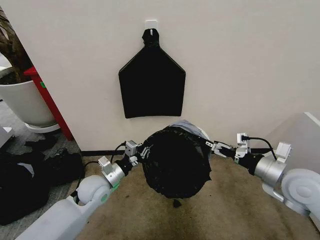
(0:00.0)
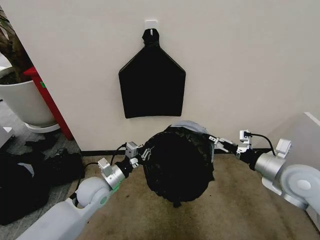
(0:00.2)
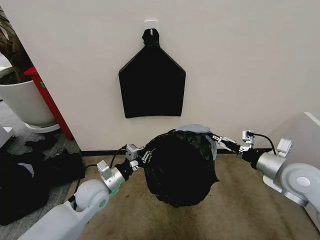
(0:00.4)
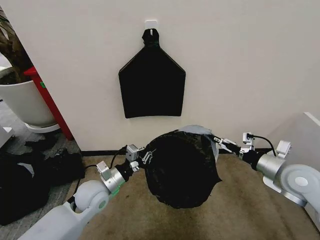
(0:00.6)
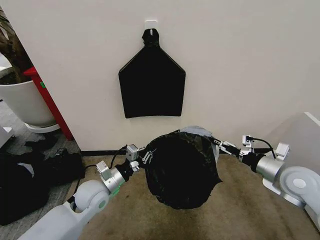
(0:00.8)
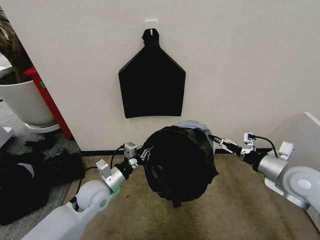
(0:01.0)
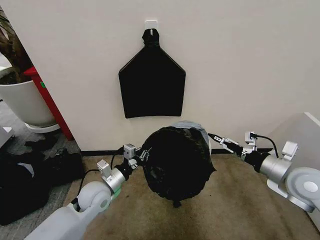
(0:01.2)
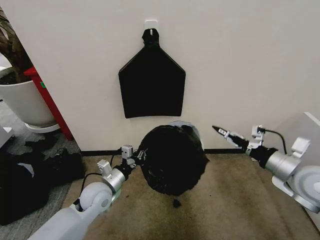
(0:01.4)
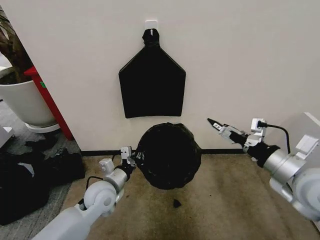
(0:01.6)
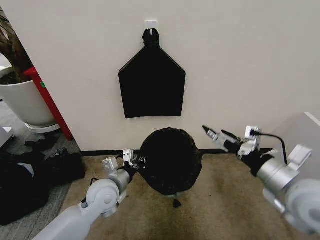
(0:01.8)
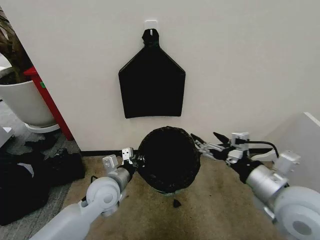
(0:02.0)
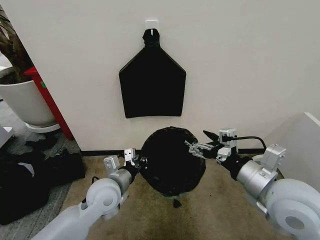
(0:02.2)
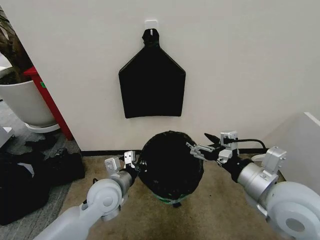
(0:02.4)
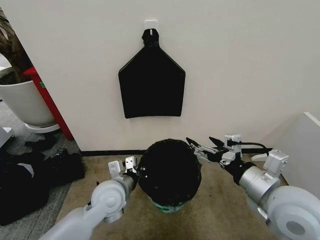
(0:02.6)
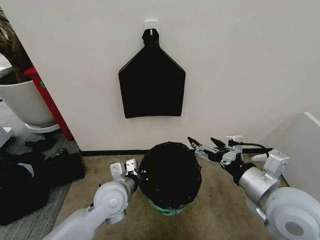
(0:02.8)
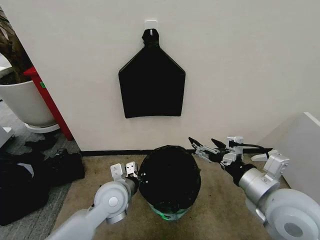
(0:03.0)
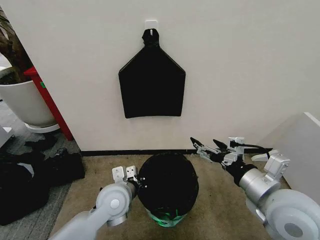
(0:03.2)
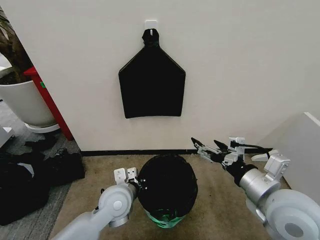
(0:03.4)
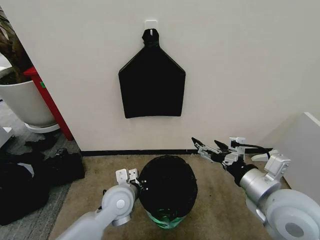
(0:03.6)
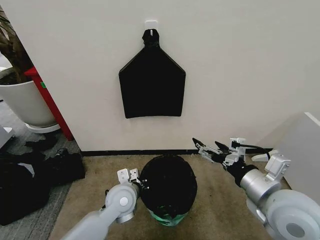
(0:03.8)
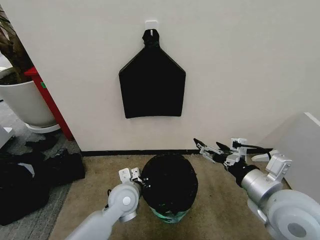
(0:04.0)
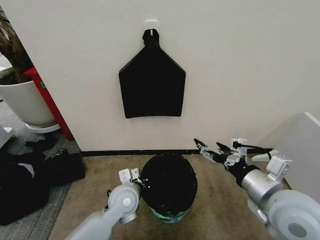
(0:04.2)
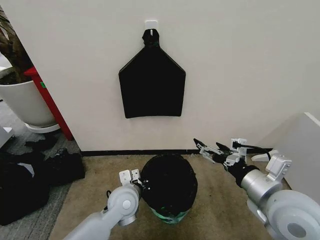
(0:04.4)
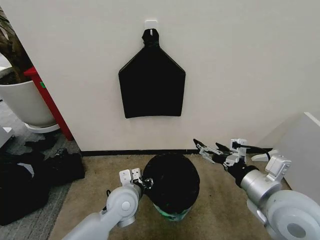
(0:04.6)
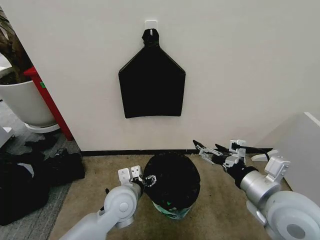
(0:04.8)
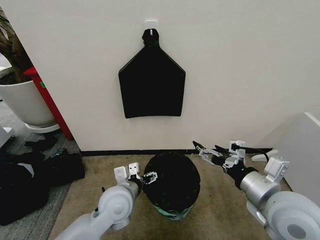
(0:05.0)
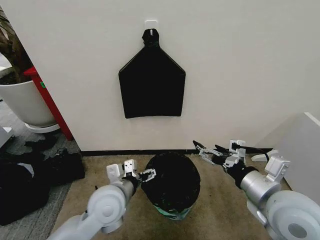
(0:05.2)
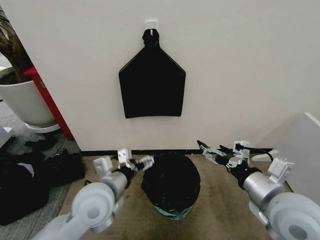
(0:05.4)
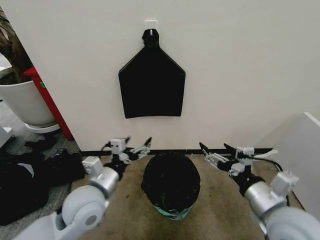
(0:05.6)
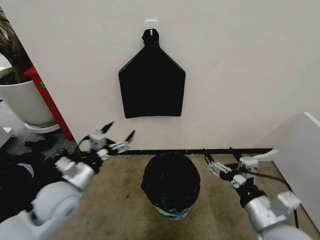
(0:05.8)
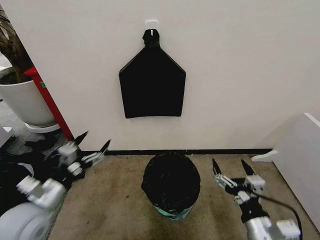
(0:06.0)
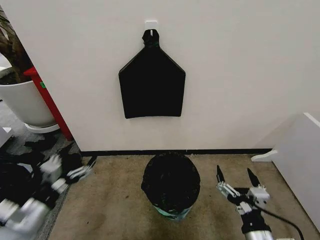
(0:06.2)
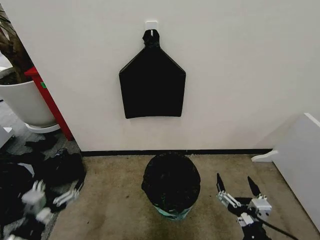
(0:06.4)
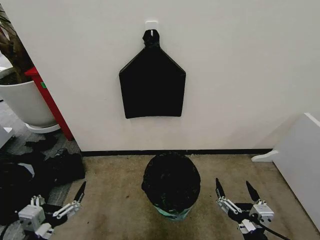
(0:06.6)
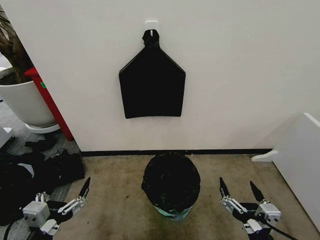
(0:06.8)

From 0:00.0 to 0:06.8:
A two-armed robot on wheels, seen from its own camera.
Task of the whole recording: Place the garbage bag over the trash bin.
From 0:00.0 to 0:01.4: The grippers move only a little.
From 0:01.4 to 0:02.8: The left gripper is displaced to the right and upward by about 10 cm. The right gripper moves to the left and backward, approximately 15 cm.
From 0:02.8 to 0:04.0: The left gripper goes about 5 cm downward.
From 0:04.0 to 0:05.4: The left gripper is displaced upward by about 15 cm, and opens its fingers.
From 0:05.4 to 0:06.8: The right gripper is displaced backward and downward by about 20 cm, while the left gripper moves backward and to the left, about 25 cm.
